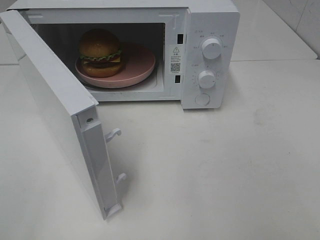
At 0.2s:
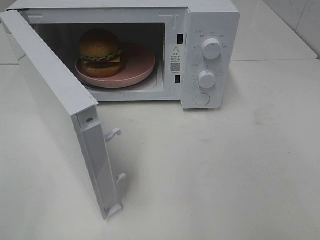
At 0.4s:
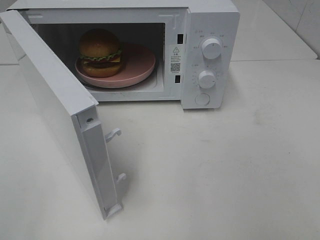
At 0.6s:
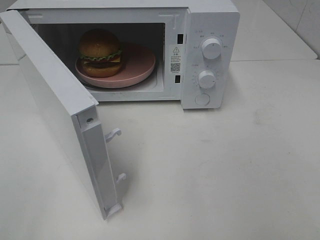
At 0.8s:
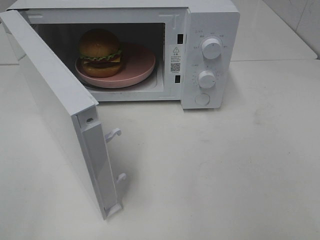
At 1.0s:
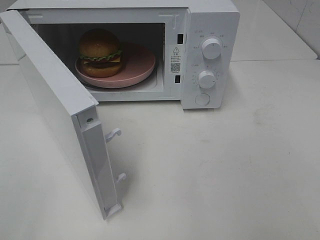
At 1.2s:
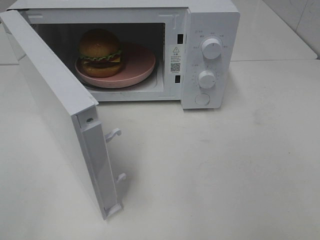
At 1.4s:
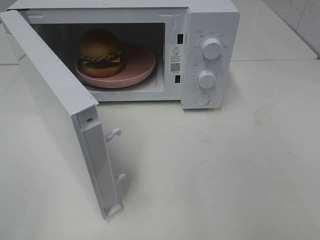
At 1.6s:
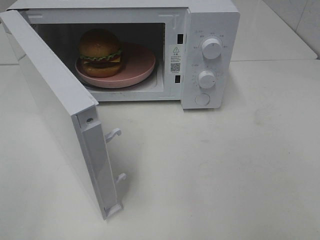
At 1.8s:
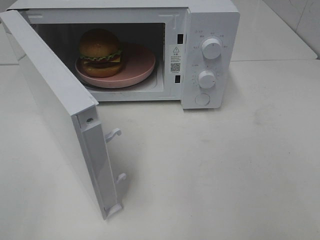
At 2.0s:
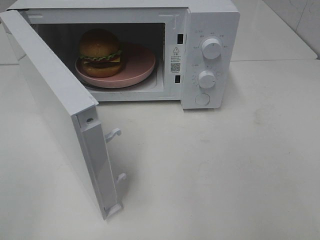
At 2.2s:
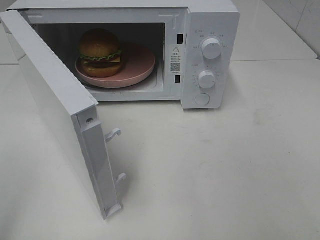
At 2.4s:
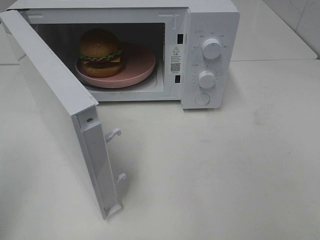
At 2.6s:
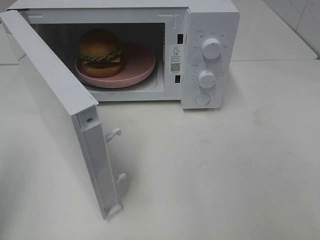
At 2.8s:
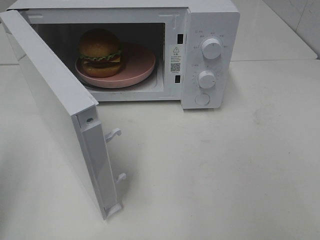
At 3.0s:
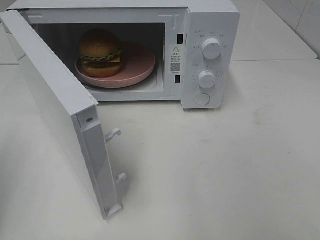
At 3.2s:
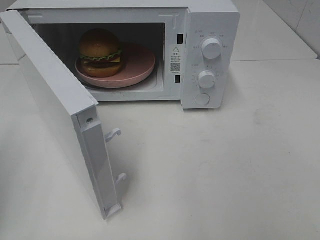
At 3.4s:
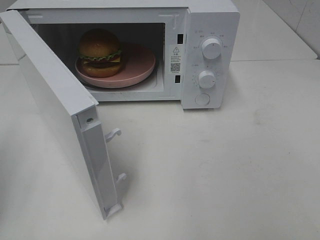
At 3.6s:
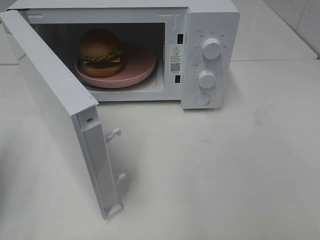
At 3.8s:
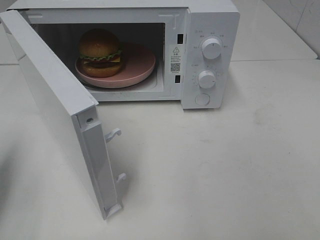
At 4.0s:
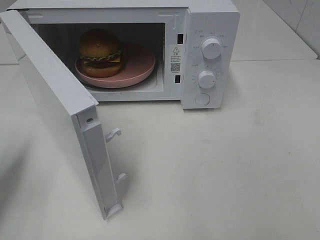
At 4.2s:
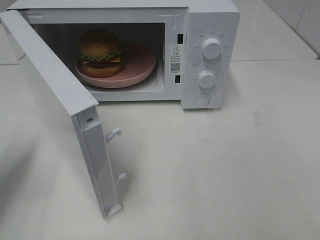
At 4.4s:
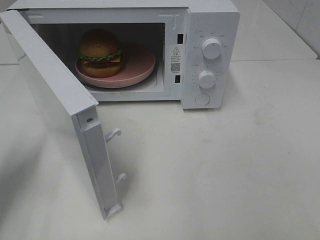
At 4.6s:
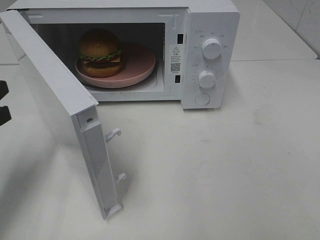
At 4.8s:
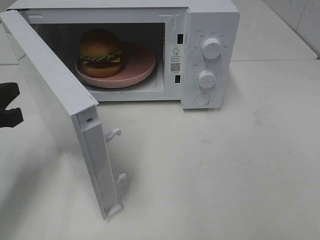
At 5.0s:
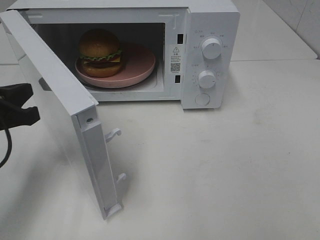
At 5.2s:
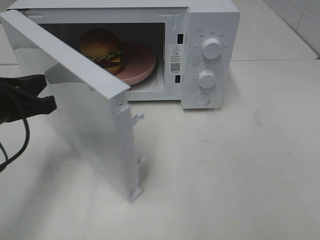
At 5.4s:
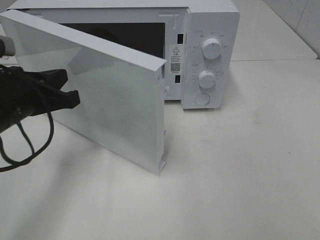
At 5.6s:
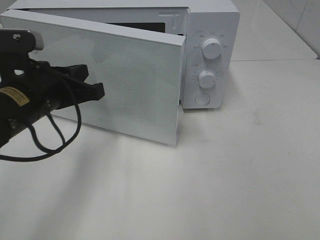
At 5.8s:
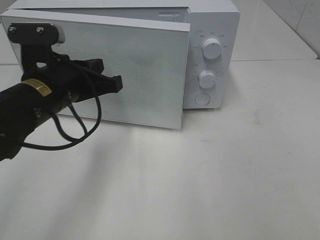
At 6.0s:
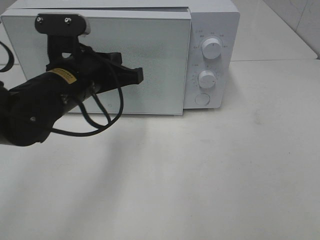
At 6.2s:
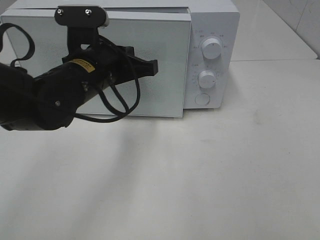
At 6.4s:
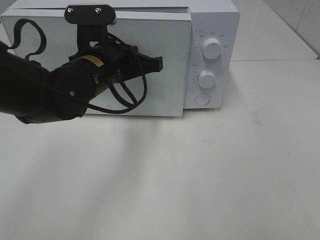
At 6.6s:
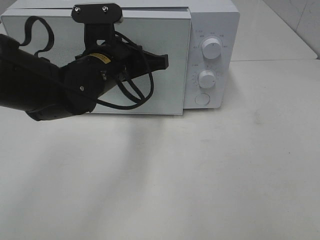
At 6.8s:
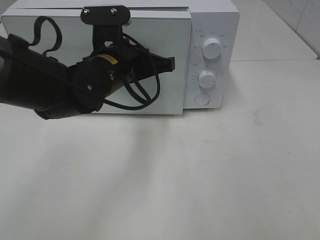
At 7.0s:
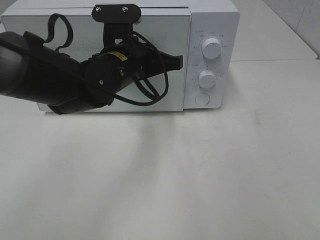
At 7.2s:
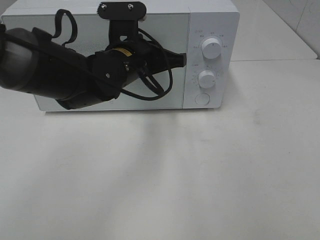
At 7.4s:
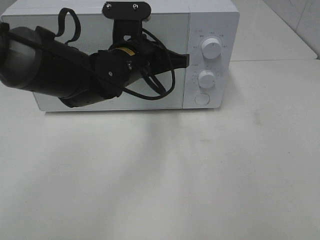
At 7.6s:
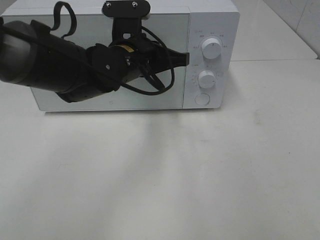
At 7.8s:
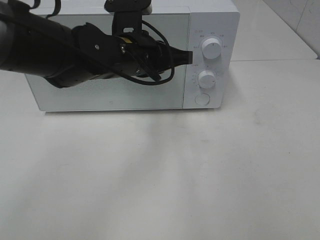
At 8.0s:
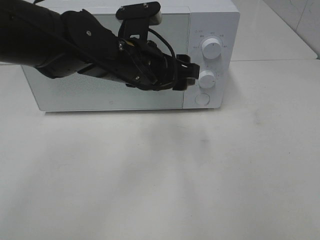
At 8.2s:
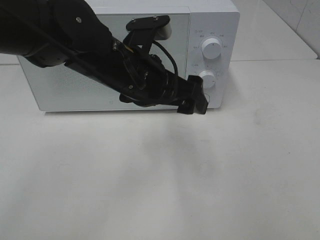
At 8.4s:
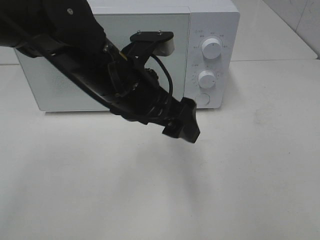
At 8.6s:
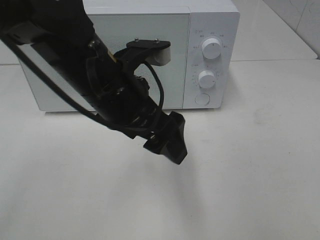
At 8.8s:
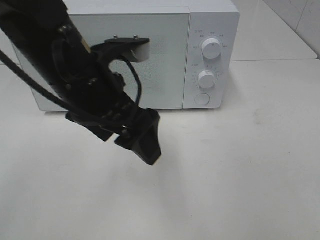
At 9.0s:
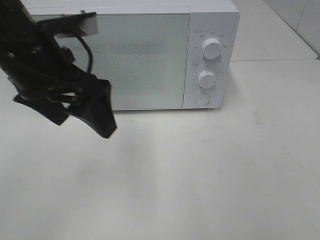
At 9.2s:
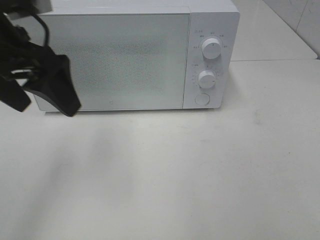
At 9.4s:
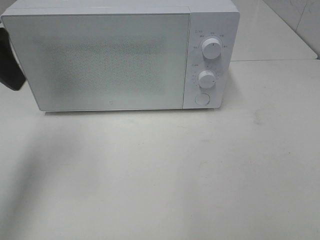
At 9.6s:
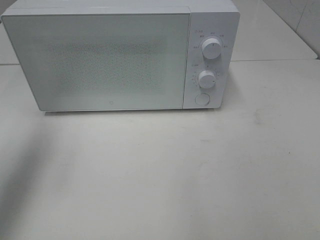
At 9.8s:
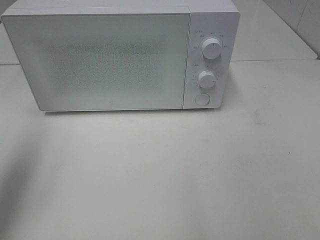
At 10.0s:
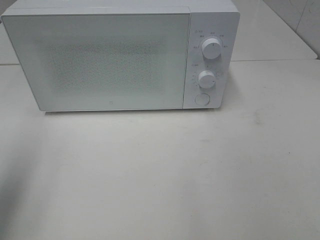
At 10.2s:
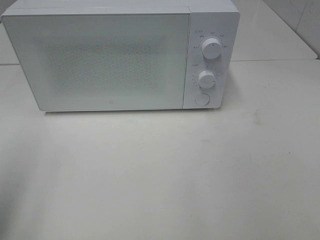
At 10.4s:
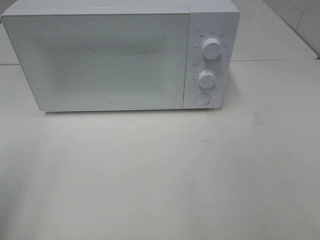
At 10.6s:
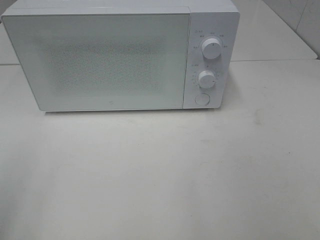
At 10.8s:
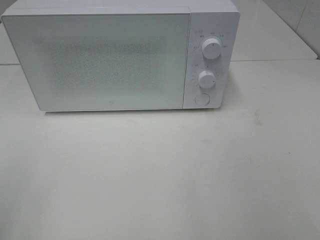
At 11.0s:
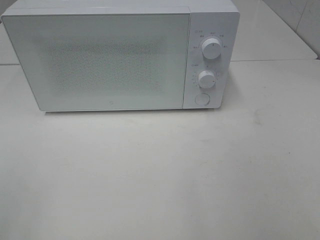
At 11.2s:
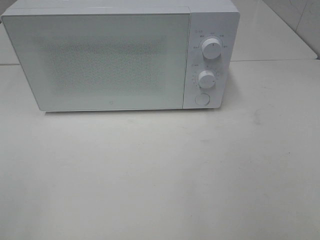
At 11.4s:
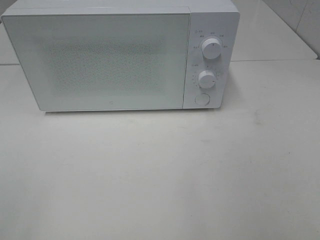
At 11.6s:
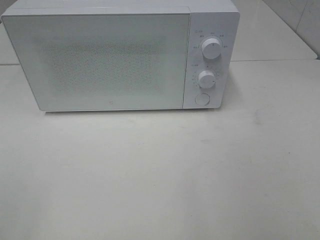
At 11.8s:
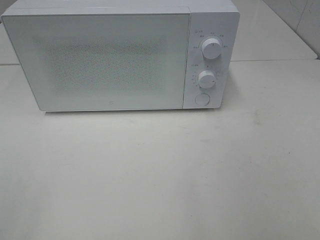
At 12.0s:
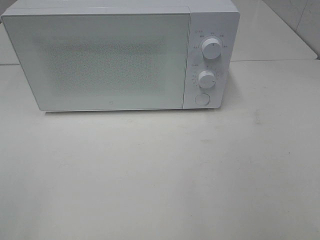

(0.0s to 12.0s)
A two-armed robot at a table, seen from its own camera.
Task of the whole recording: Heat the burger.
Step, 0.0s - 8.0s: Left hand: close the microwave door.
0.0s - 1.6s: The two grippers keep their place.
3.0s - 4.4s: The left gripper shifts roughly 10 cm forward and downward.
4.4s - 6.0s: The left gripper shifts some 20 cm to the right.
6.0s - 7.6s: The left gripper moves to the right and forward, some 10 cm.
7.6s - 9.0s: The left gripper goes roughly 15 cm to the left, backward and upward, and opens.
9.0s - 10.4s: The left gripper heads to the left and backward, covering approximately 25 cm.

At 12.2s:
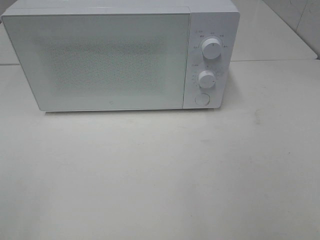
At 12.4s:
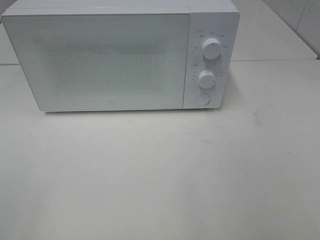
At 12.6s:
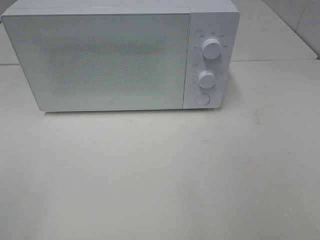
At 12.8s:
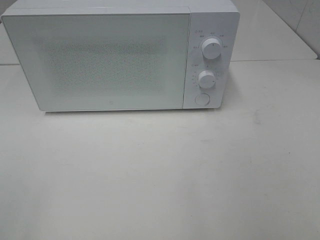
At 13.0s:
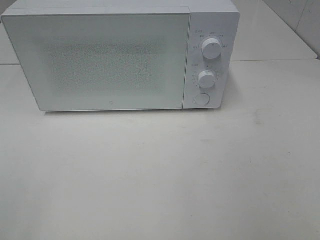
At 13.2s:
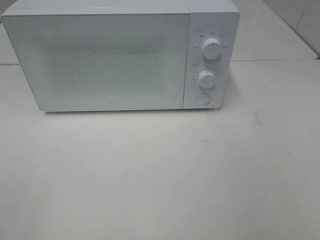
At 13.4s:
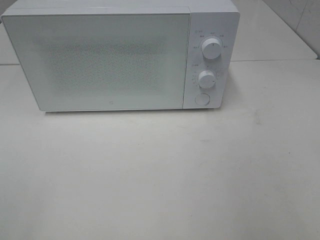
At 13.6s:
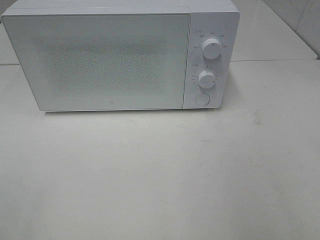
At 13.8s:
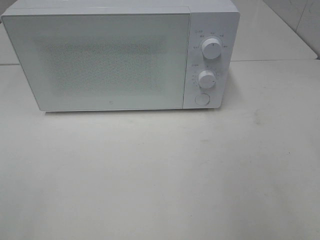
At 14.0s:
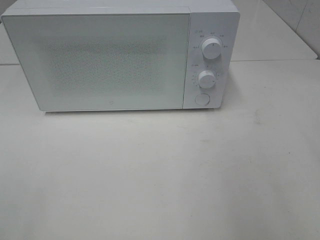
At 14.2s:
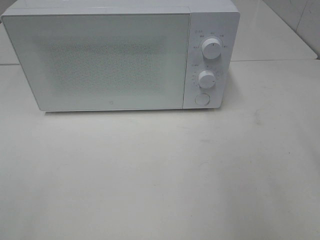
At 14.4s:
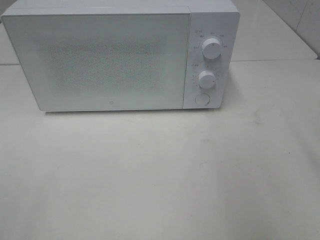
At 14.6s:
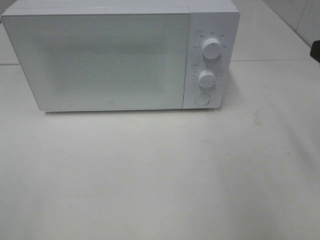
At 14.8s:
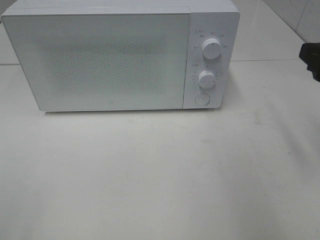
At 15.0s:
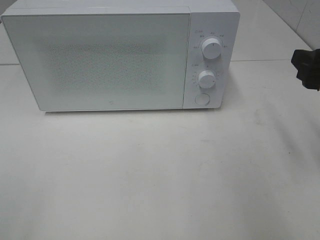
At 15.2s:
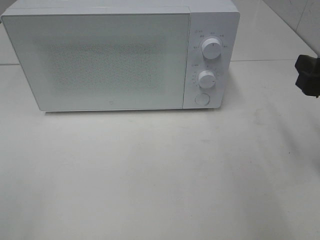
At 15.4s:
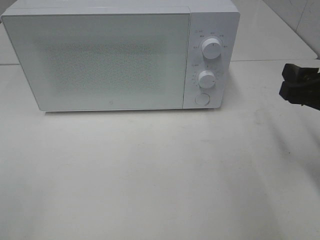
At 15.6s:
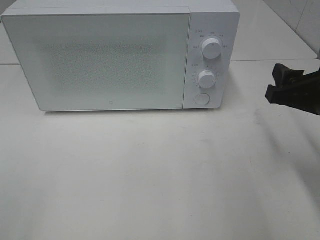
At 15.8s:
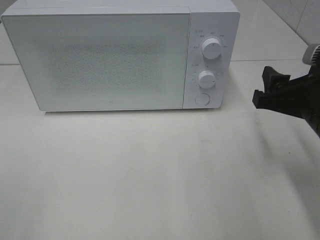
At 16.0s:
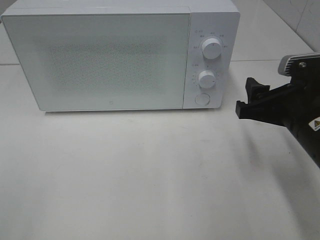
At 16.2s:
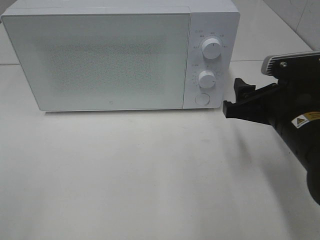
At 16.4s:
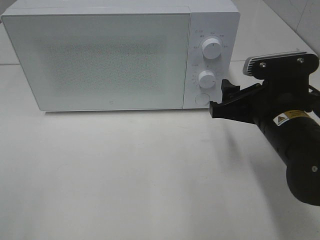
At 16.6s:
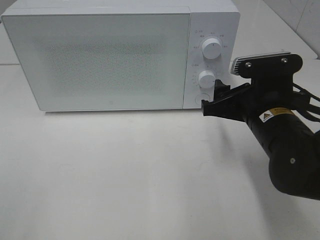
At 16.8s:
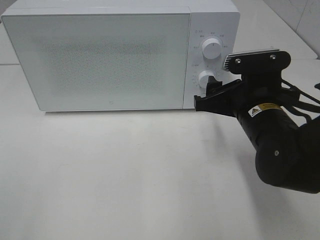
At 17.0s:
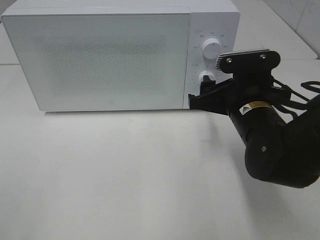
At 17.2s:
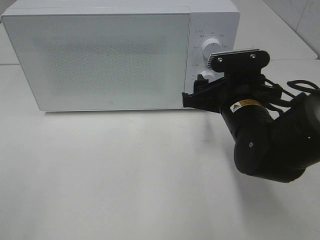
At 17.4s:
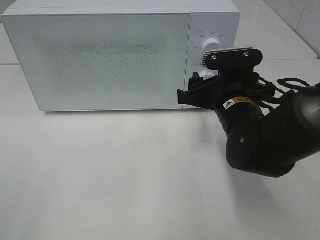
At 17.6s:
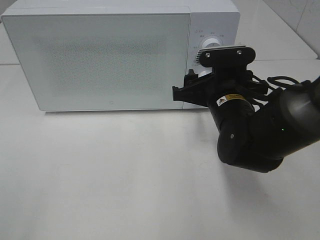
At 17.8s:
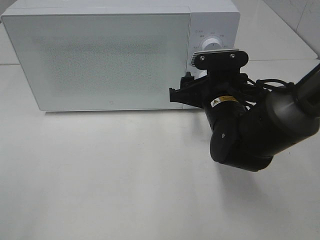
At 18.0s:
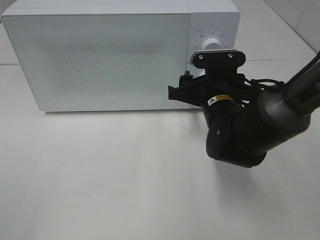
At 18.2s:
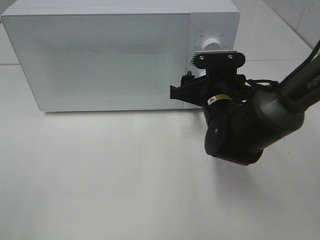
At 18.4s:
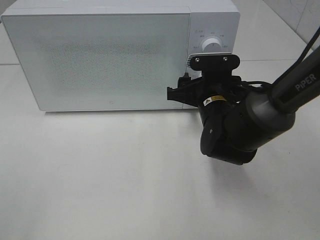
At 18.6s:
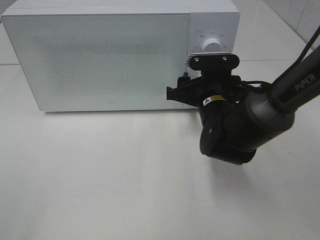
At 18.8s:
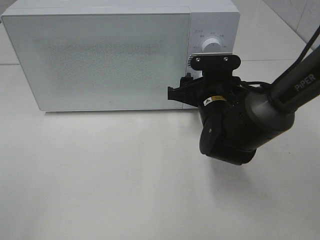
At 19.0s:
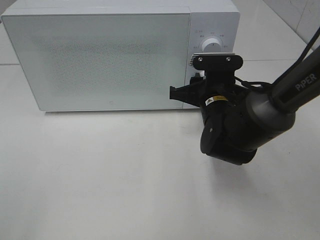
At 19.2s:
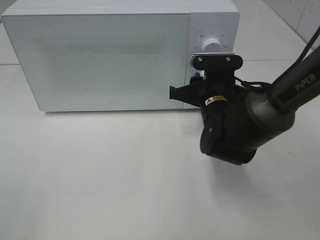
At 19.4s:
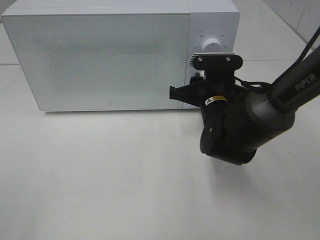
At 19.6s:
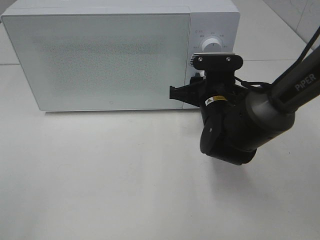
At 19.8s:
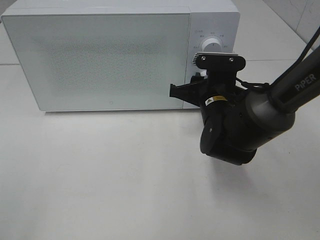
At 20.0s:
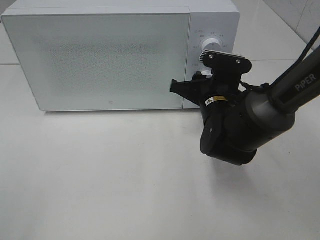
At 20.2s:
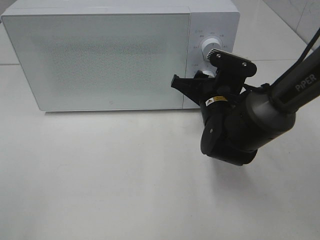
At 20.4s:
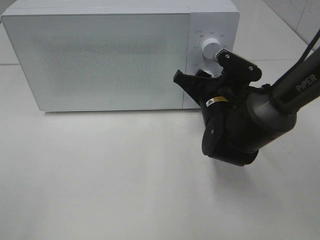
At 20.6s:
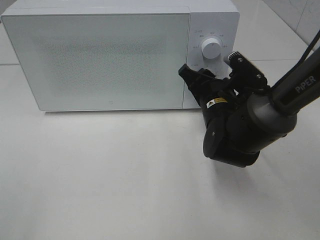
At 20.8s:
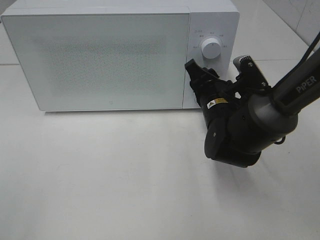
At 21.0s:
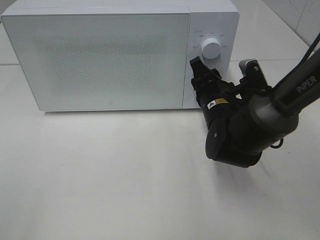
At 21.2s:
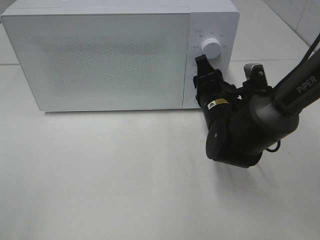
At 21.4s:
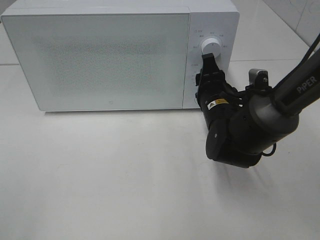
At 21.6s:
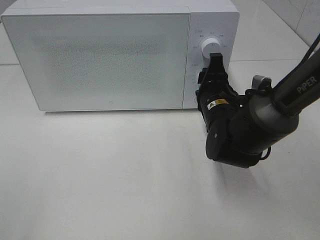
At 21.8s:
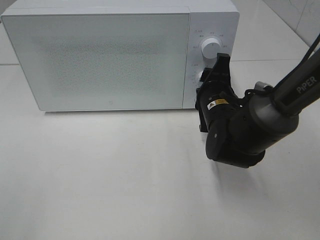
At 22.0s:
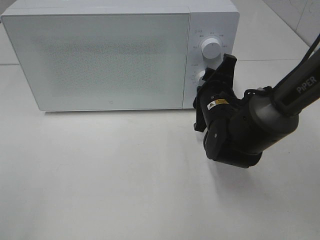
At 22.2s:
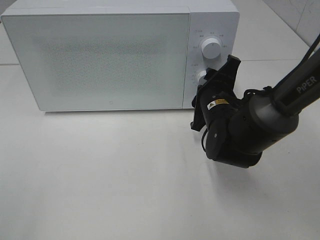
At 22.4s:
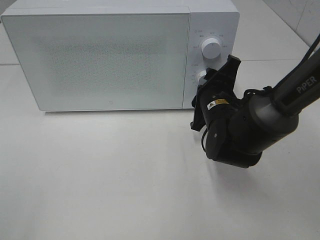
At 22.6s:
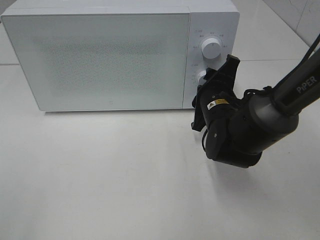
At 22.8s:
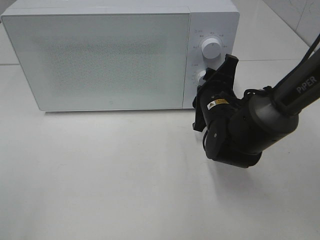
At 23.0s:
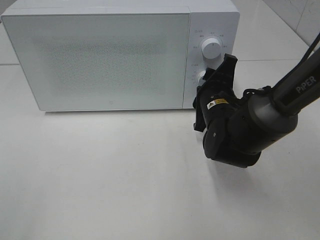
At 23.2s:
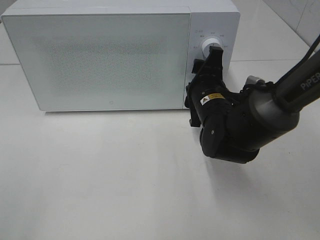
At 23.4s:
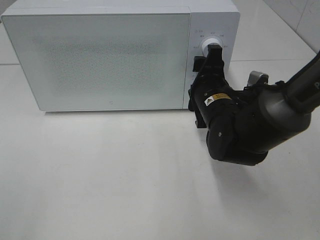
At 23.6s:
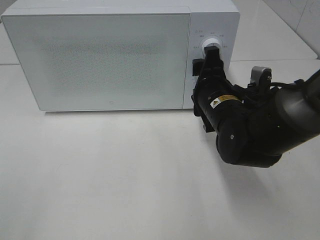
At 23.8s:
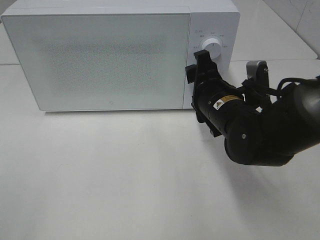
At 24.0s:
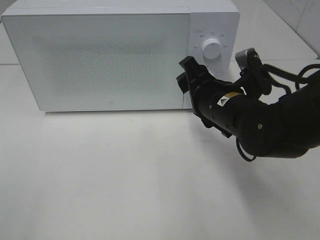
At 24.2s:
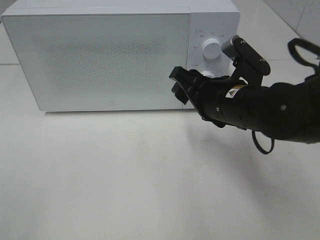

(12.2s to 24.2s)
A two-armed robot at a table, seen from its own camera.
Task of the whole recording: Heat the burger.
Step, 12.2s - 23.6s: Right hand: twist timer button.
13.8s - 15.2s: The right gripper is displaced forward and downward by about 15 cm.
15.2s - 16.6s: The right gripper heads to the left and downward, covering about 15 cm.
16.6s - 18.2s: The right gripper goes about 10 cm forward.
18.2s - 19.8s: The right gripper closes.
22.6s - 24.2s: The right gripper moves upward and backward, roughly 10 cm.
